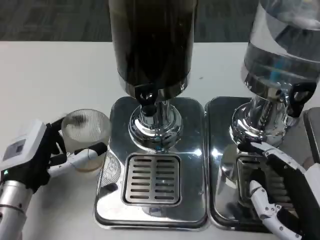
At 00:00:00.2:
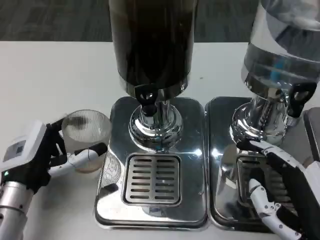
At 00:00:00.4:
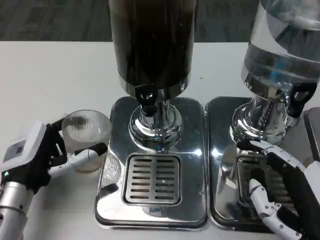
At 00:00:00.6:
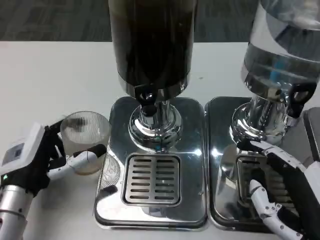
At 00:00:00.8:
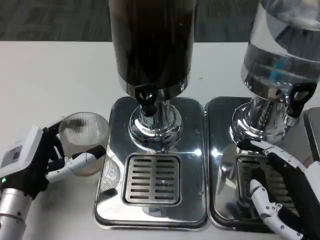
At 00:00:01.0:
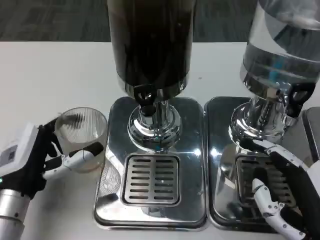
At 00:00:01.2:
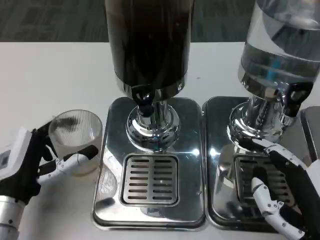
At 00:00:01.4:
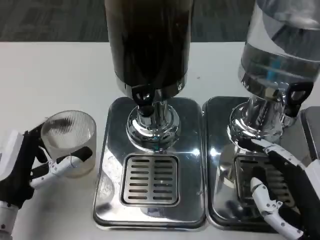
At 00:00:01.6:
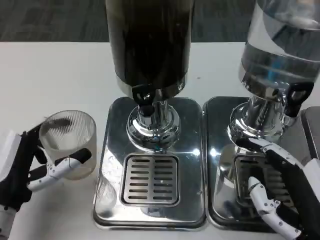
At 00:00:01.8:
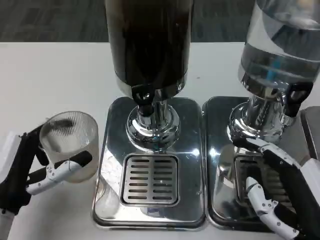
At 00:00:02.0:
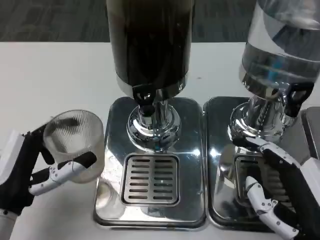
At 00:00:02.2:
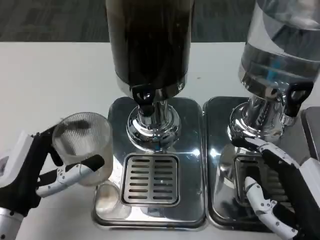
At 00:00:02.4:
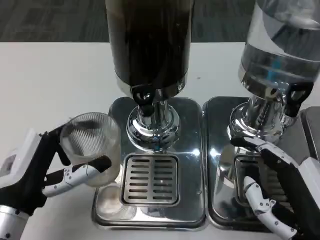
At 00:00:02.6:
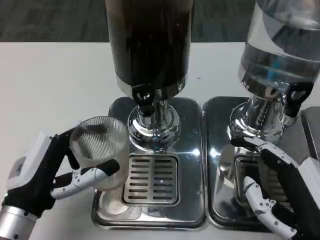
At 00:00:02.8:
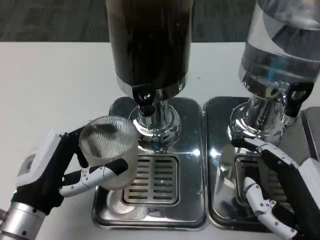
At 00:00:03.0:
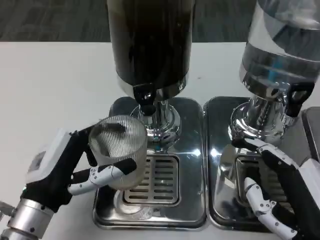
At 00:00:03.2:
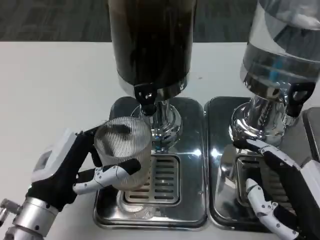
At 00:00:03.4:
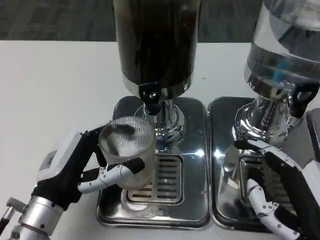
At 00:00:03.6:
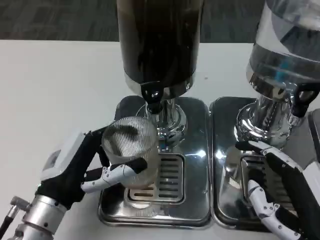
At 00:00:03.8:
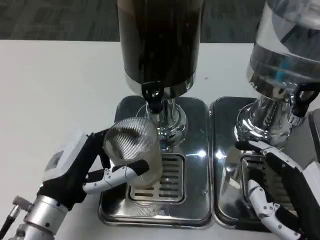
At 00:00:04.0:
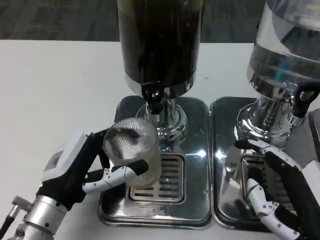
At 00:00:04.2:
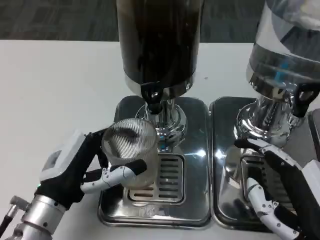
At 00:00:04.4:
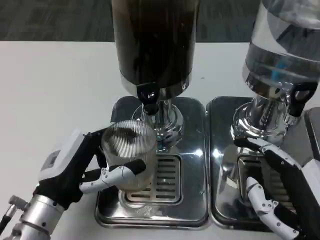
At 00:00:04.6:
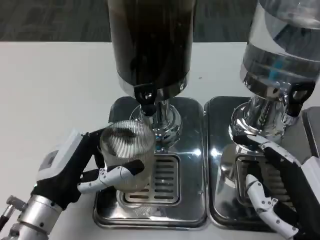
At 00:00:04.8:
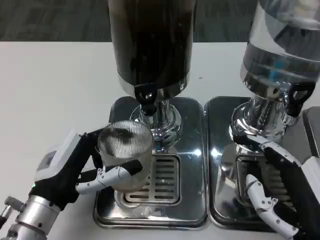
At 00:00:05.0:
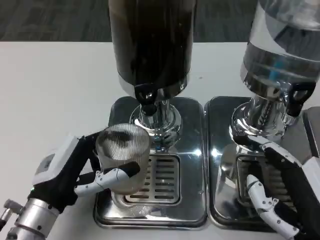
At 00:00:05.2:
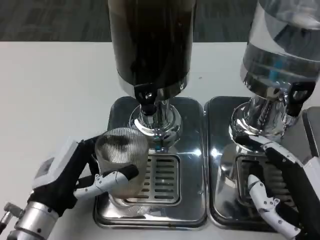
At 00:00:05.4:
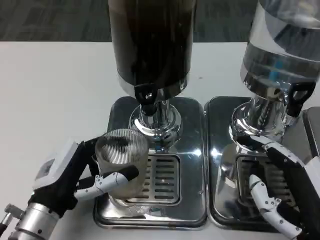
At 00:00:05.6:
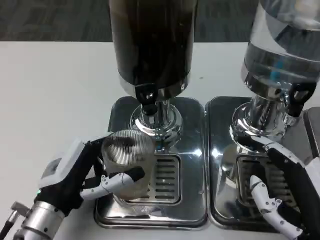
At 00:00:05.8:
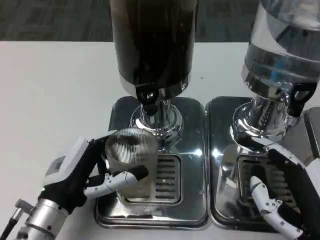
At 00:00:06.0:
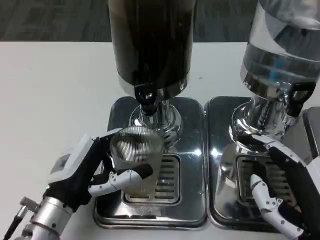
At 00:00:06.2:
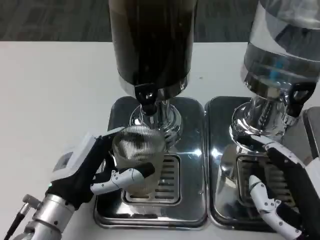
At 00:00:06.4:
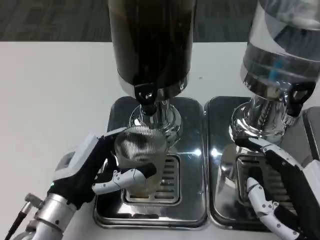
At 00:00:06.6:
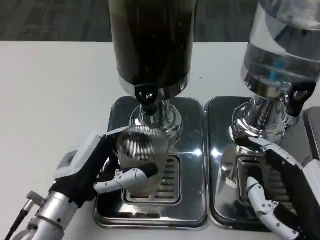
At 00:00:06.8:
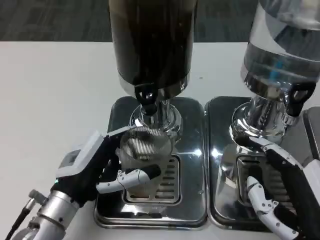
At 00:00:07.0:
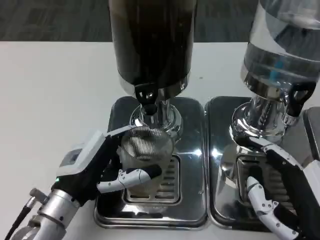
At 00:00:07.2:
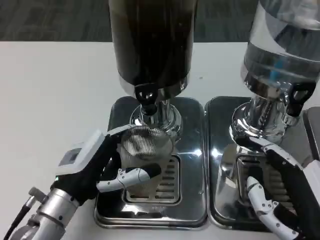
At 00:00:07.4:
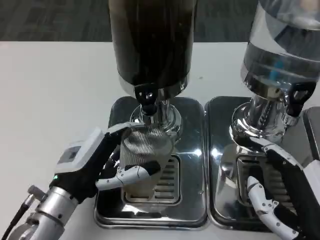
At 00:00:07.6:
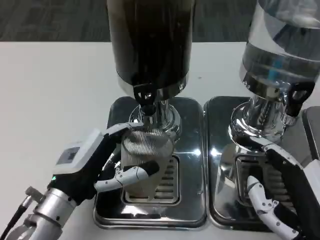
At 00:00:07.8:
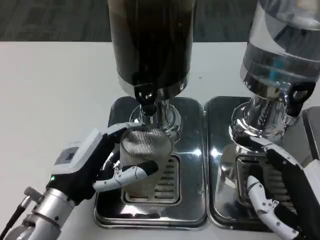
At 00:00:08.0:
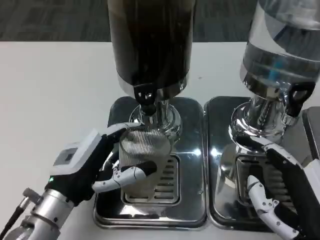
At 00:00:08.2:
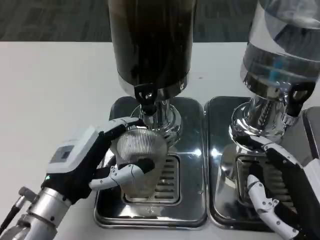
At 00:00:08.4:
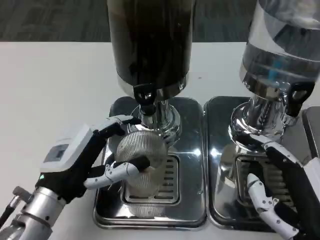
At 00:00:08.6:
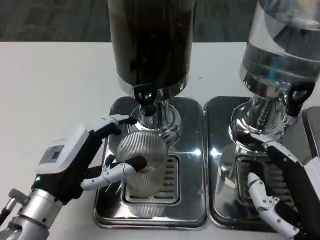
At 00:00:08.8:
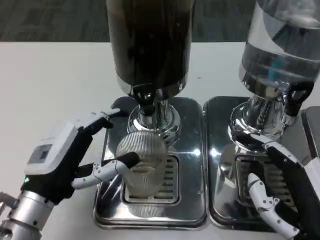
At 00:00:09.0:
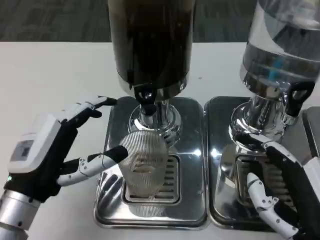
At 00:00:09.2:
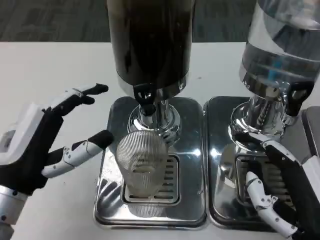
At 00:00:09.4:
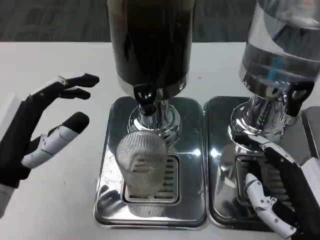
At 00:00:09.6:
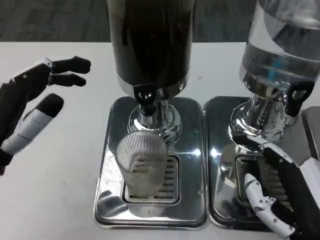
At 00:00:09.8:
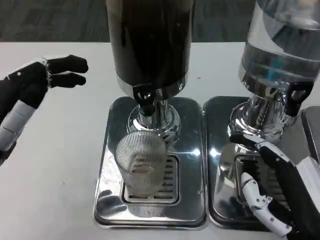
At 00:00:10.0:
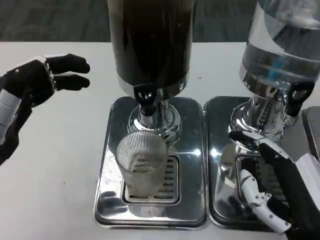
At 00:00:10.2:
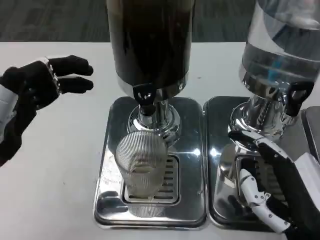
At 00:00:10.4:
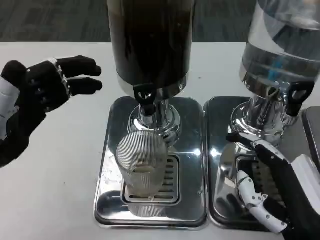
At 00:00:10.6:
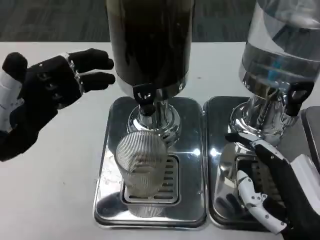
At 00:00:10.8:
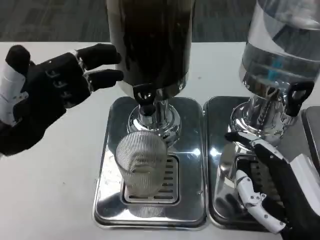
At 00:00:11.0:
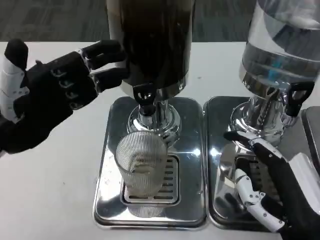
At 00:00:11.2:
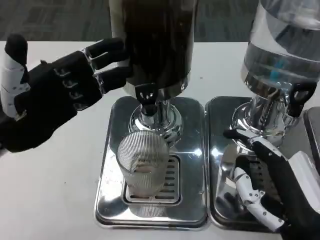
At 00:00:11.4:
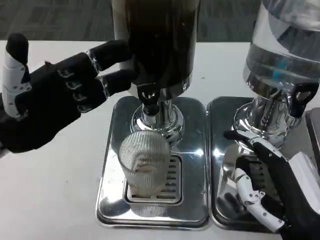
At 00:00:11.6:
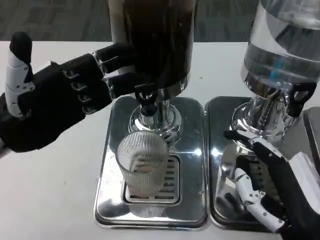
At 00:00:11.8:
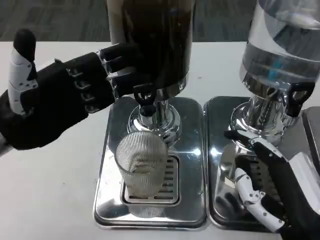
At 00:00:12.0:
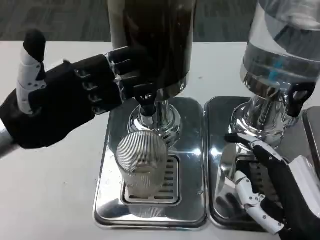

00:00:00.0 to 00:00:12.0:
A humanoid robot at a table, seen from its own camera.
Task of the whole recording: Grasp the cup under the faucet to collect the drink, then remove the cup.
00:00:06.0 to 00:00:07.6: The hands move only a little.
00:00:07.6 to 00:00:09.0: The left hand ends up about 5 cm from where it was.
00:00:09.0 to 00:00:10.4: The left hand heads upward and to the left, covering some 10 cm.
00:00:10.4 to 00:00:12.0: The left hand moves forward, approximately 5 cm.

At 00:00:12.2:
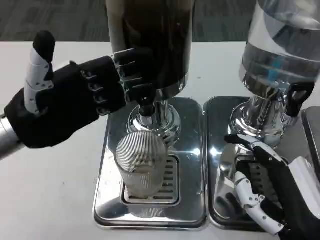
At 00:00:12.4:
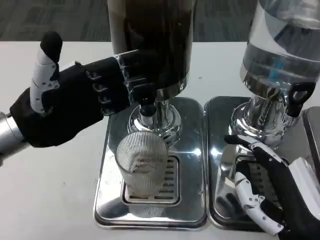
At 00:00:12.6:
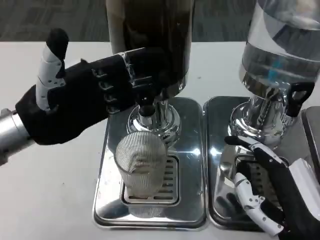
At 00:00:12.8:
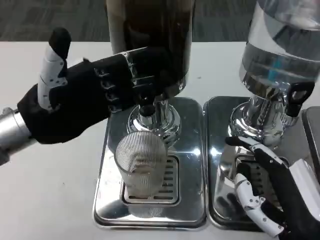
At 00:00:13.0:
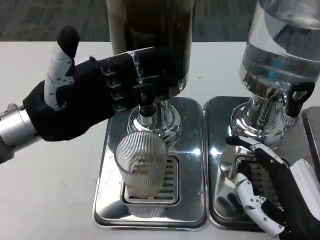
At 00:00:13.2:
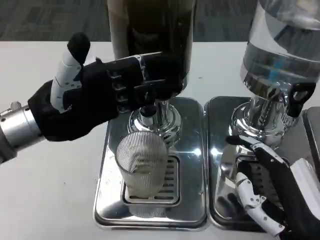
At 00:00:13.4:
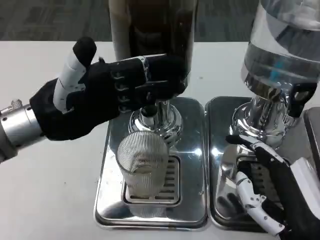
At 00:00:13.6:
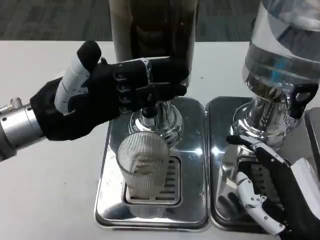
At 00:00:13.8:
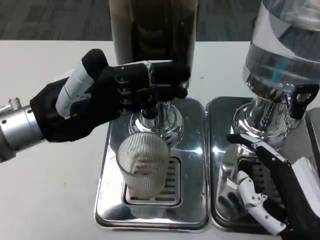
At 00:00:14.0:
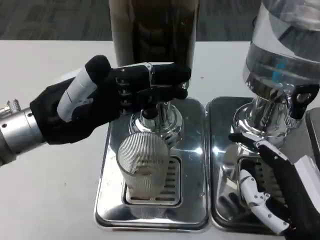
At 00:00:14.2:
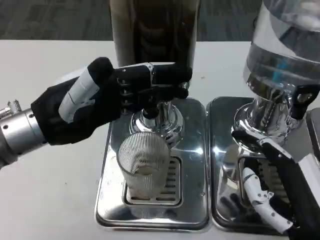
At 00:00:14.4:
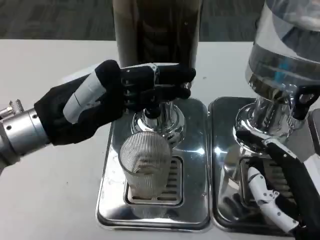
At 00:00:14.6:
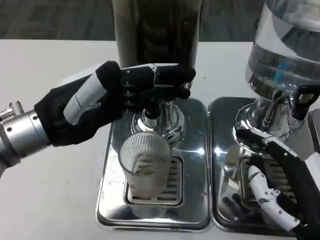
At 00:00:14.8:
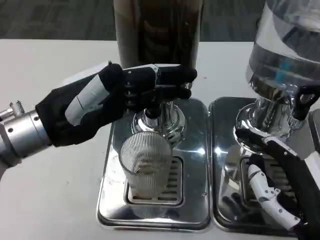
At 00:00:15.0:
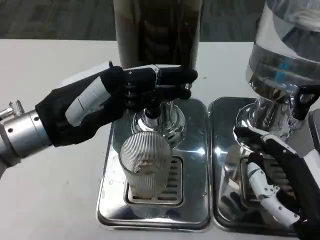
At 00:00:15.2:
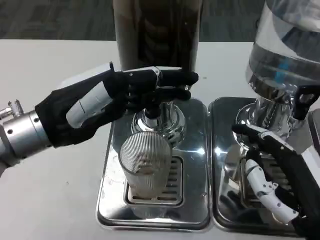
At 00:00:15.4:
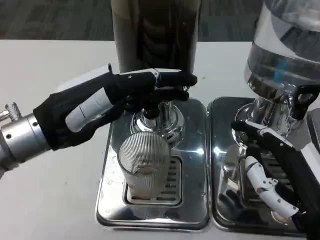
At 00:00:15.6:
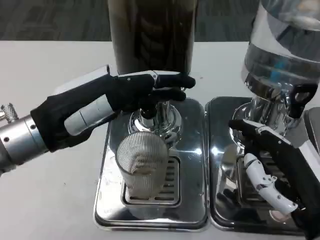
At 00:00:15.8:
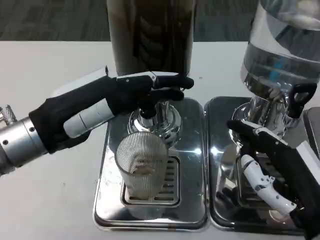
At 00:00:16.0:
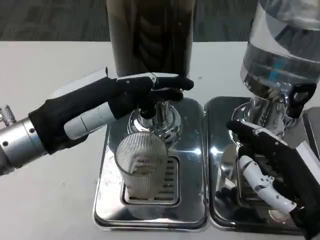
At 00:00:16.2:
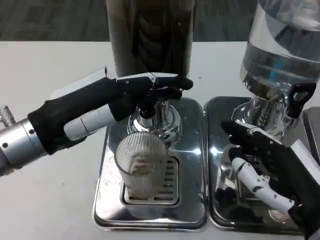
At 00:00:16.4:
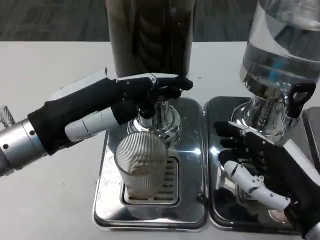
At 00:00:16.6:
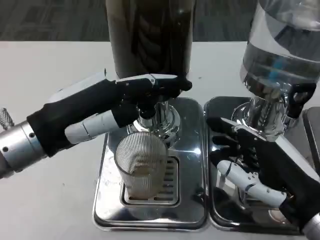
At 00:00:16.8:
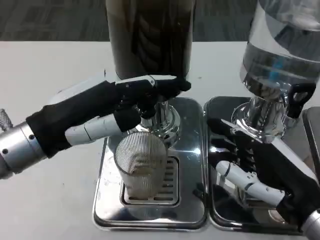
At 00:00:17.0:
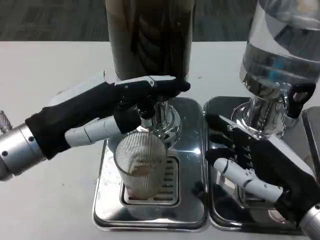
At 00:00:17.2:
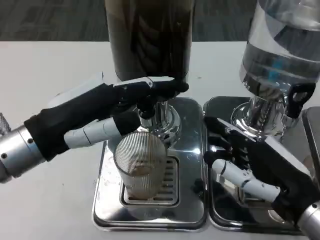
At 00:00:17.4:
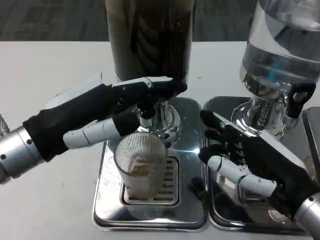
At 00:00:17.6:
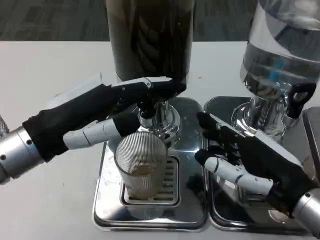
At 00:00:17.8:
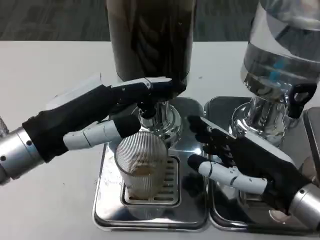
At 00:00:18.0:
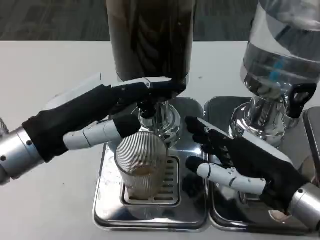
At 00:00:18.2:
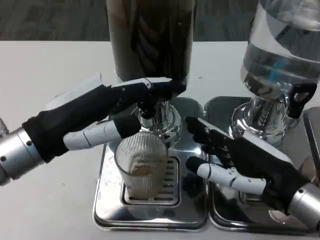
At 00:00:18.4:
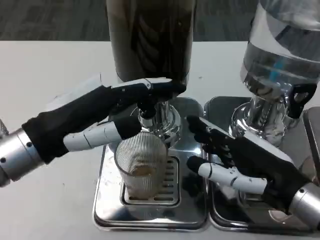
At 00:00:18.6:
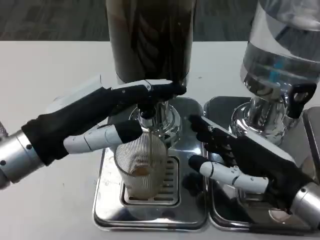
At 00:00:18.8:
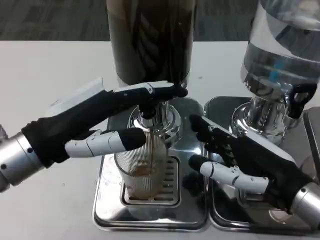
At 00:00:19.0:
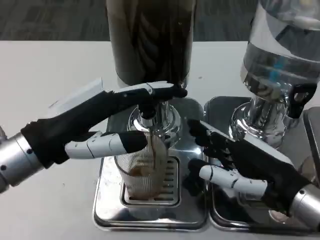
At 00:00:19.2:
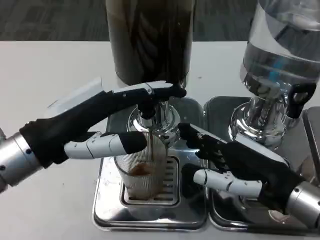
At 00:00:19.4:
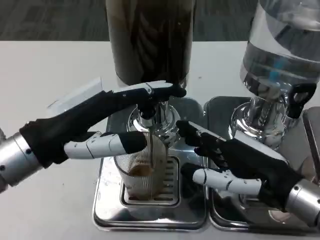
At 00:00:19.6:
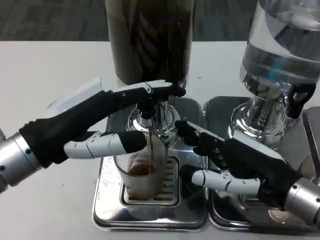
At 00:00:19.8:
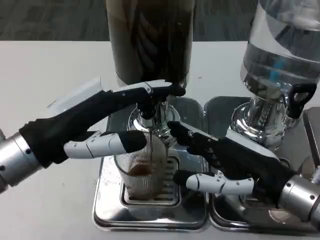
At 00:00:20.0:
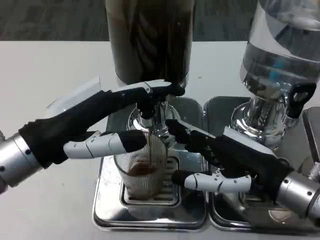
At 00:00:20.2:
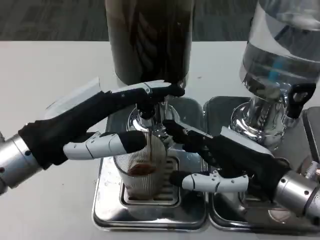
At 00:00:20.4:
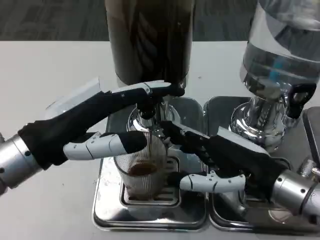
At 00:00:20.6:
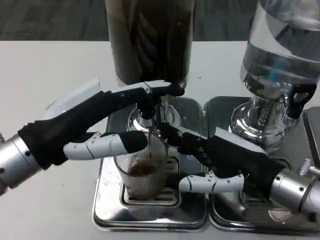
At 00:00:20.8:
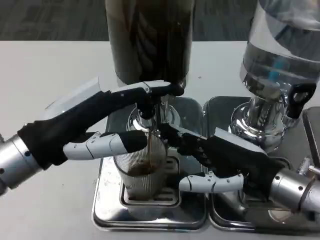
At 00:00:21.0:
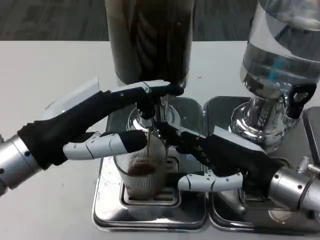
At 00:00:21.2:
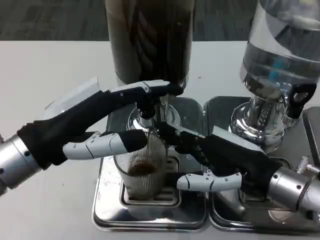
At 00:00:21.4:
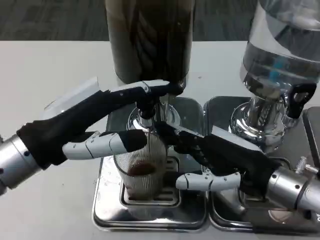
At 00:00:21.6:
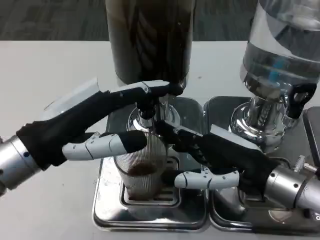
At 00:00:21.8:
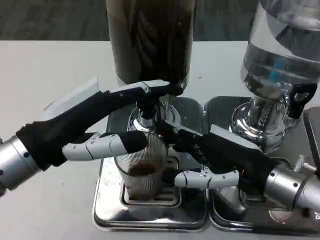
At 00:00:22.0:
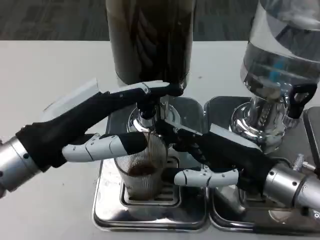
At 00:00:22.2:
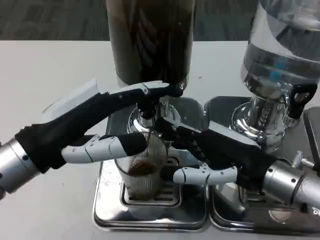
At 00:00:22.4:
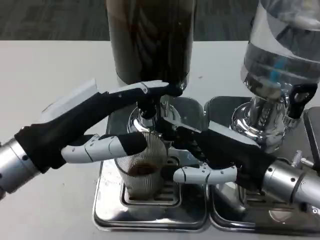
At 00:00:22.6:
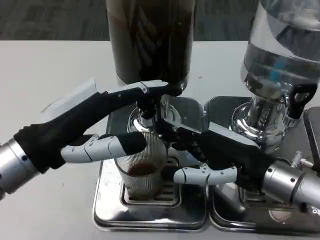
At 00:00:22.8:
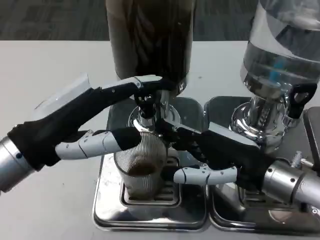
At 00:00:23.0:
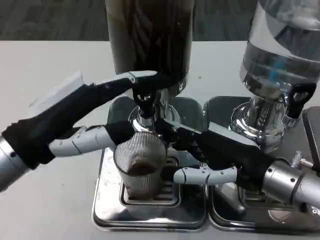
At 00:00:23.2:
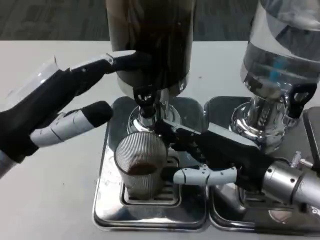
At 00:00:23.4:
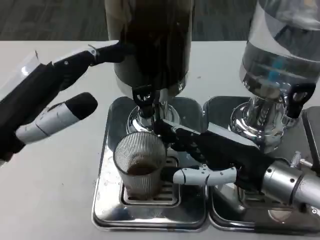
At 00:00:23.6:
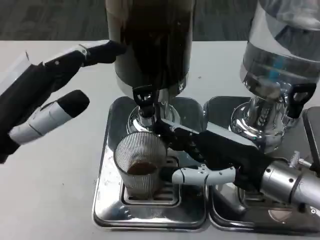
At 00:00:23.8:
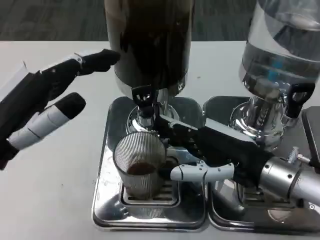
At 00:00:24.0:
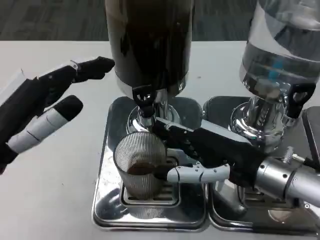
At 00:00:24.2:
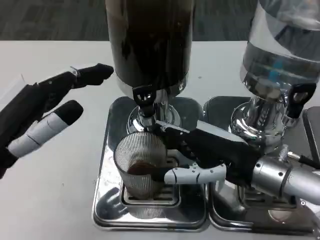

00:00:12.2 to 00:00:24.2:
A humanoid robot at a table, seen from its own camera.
Task of the whole recording: Grasp the cup under the faucet to collect the drink, then remove the cup.
00:00:16.6 to 00:00:18.2: The hands stay close to where they were, moving slightly.
00:00:18.2 to 00:00:21.2: The hands make only small movements.
00:00:21.2 to 00:00:22.6: Neither hand changes place.
